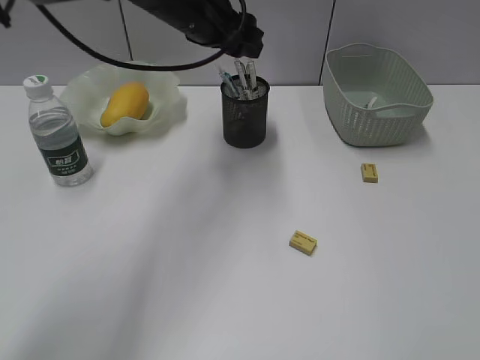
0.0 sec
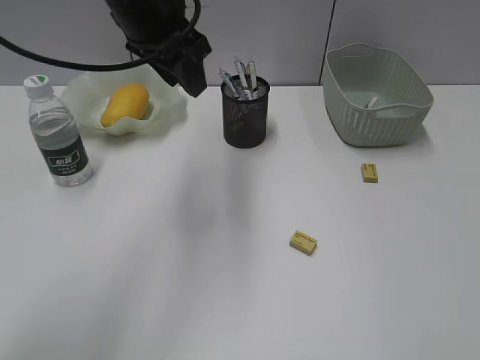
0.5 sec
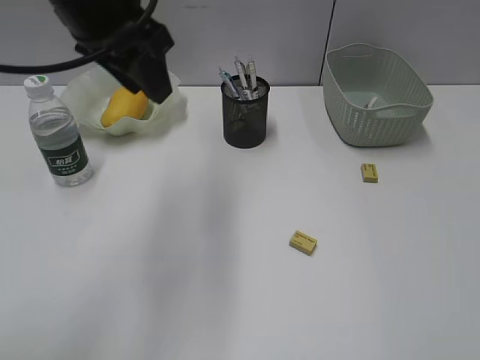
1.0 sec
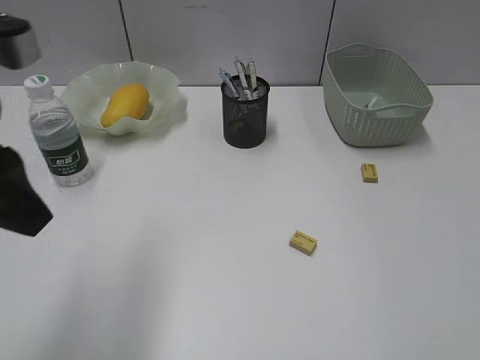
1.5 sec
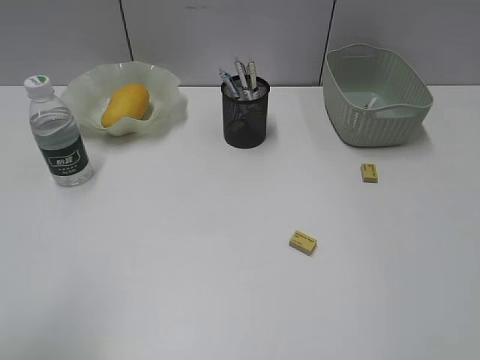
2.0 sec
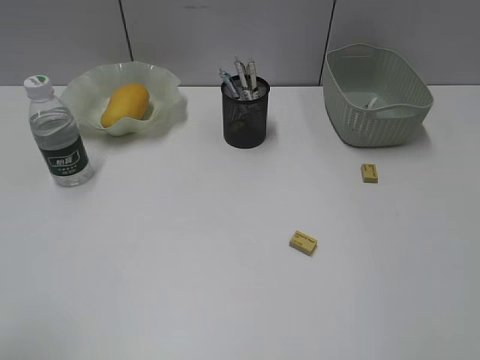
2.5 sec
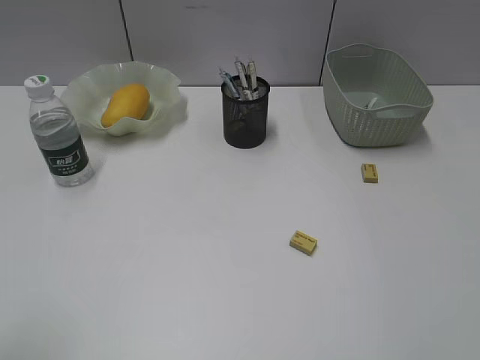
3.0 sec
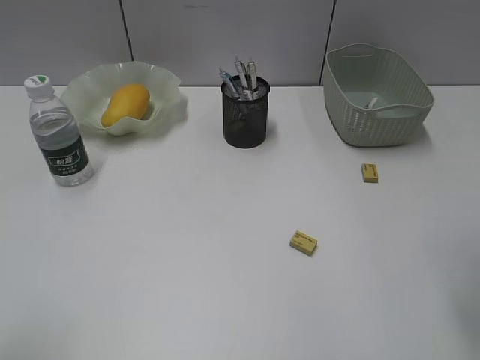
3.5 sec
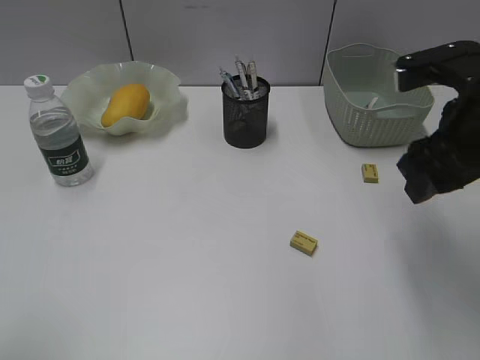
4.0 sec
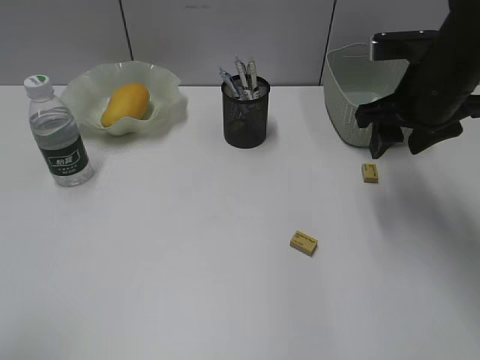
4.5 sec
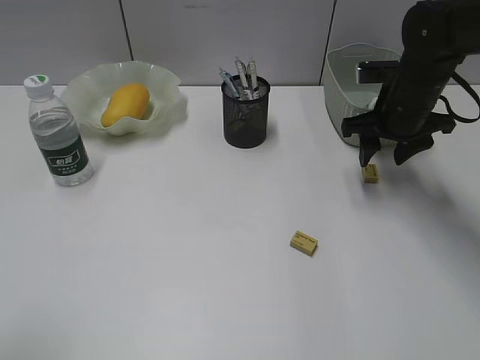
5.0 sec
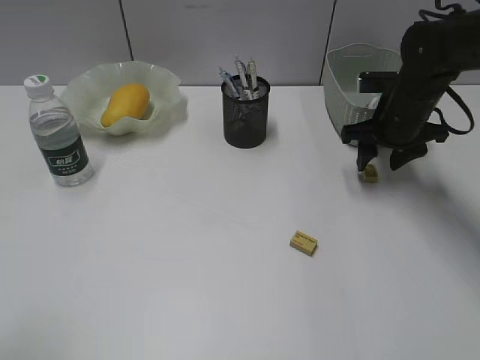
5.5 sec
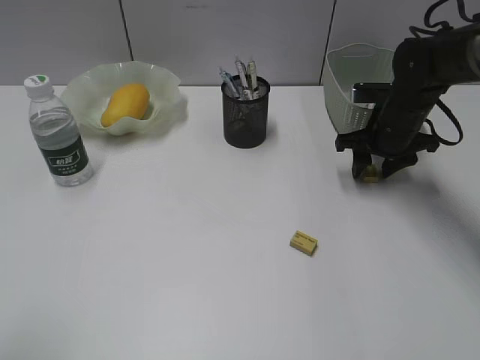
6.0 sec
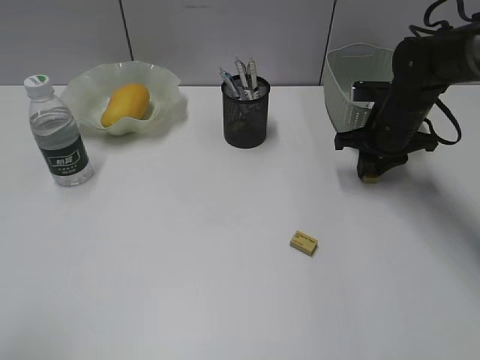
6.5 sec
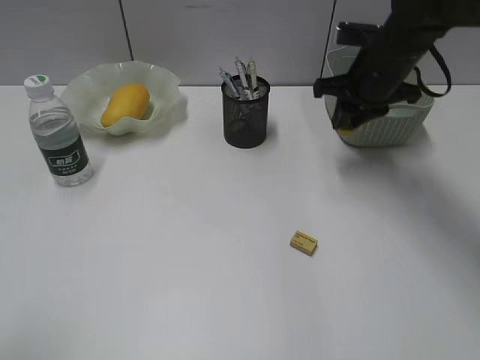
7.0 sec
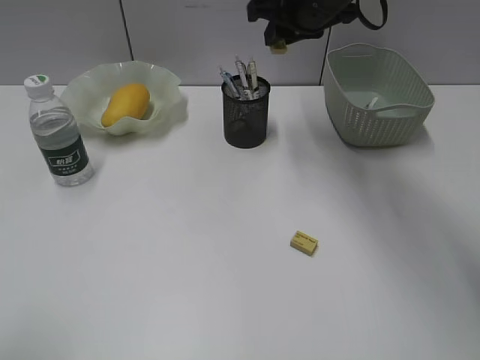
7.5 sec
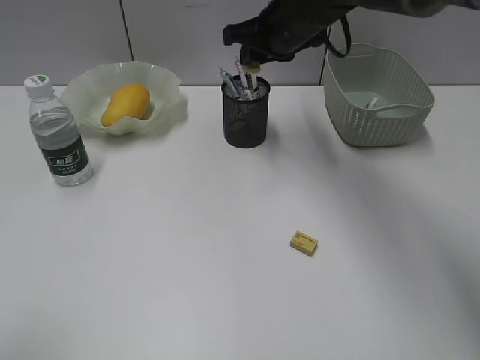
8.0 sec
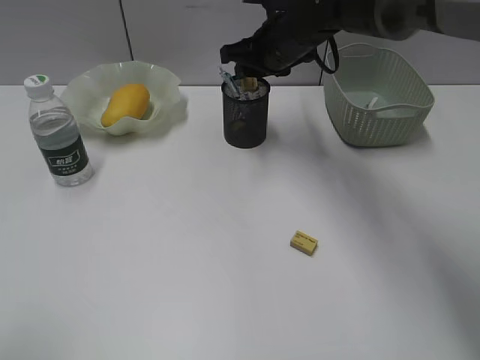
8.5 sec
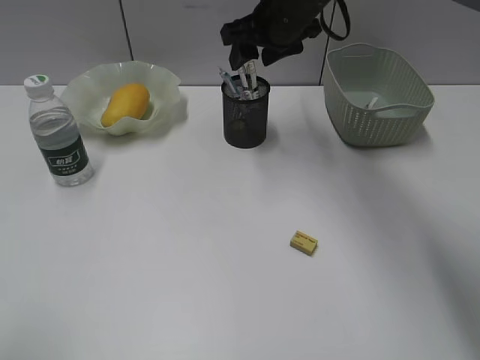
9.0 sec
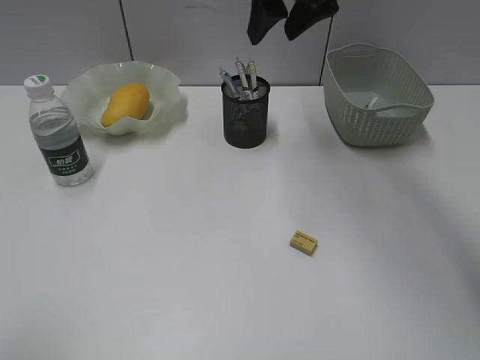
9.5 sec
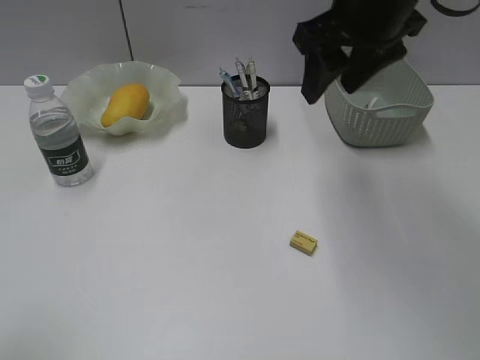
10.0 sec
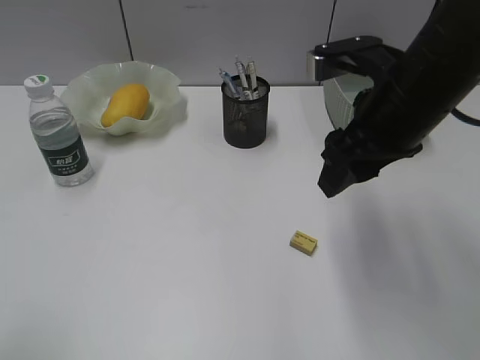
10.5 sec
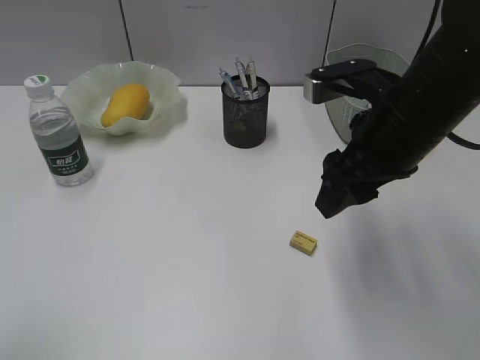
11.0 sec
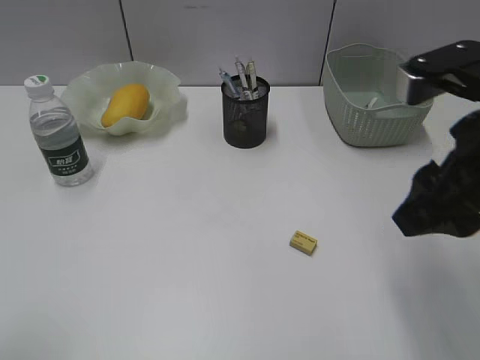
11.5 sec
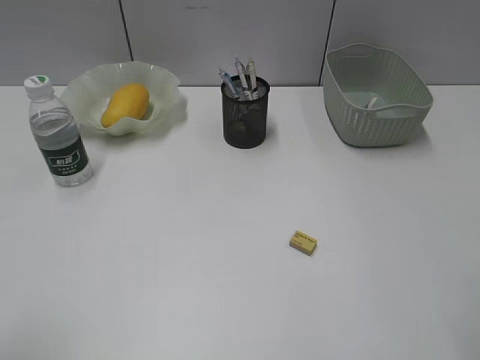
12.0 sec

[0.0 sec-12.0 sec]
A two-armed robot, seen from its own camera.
Step, 0.0 sec to 6.5 sec: Grasp the eraser with right gripper.
Step, 7.0 sec to 8.5 sec: Place the eraser in pen holder with right gripper.
0.0 sec to 2.0 sec: The left gripper moves backward and to the left, approximately 40 cm.
2.0 sec to 4.0 sec: The right gripper shifts roughly 25 cm forward and to the left.
4.0 sec to 6.0 sec: The right gripper travels forward and downward by roughly 25 cm.
6.0 sec to 8.0 sec: The right gripper goes some 20 cm to the left and upward, and closes its fingers.
8.0 sec to 10.0 sec: The right gripper goes roughly 15 cm backward, upward and to the right, and opens its fingers.
10.0 sec to 12.0 sec: The right gripper goes about 30 cm backward and to the right.

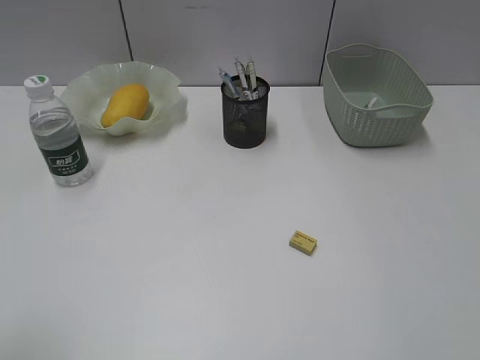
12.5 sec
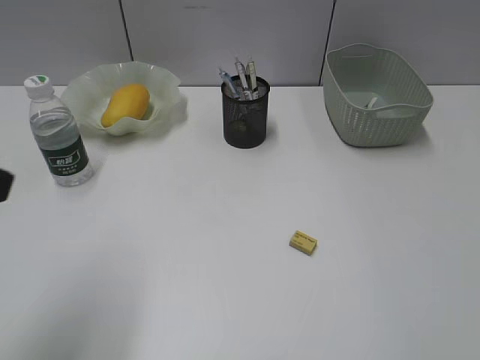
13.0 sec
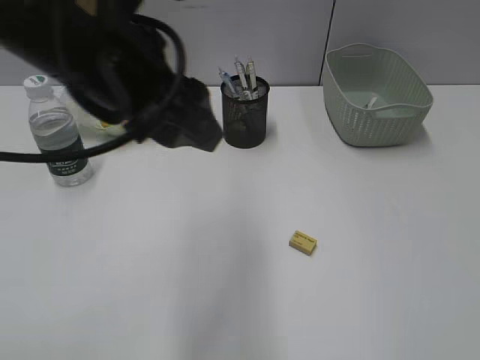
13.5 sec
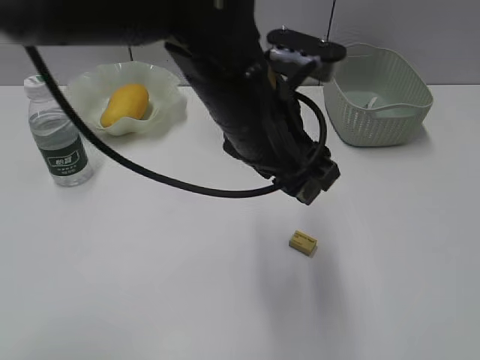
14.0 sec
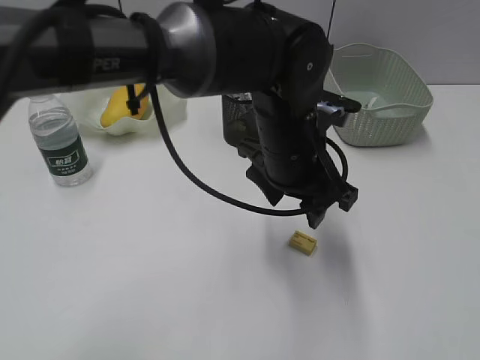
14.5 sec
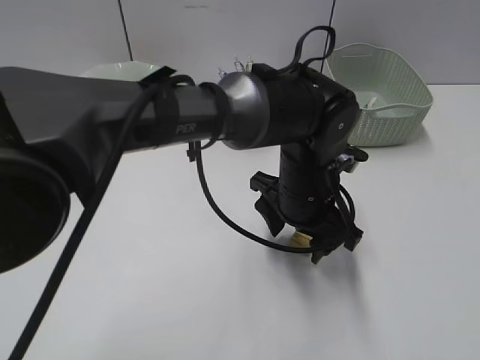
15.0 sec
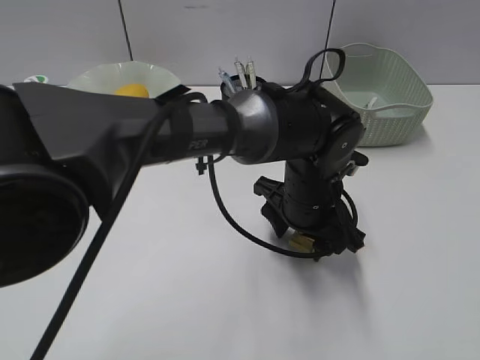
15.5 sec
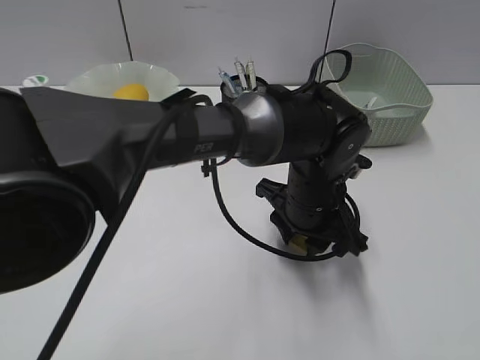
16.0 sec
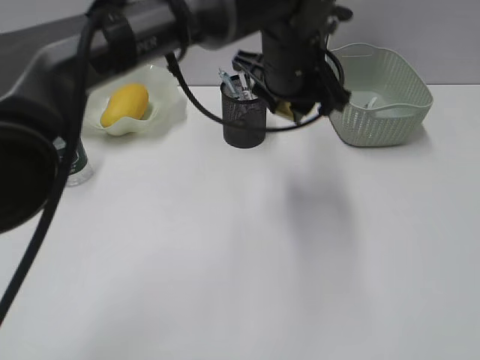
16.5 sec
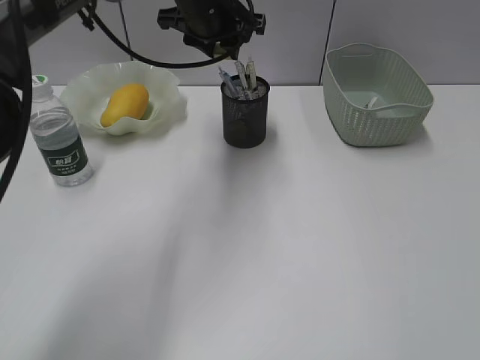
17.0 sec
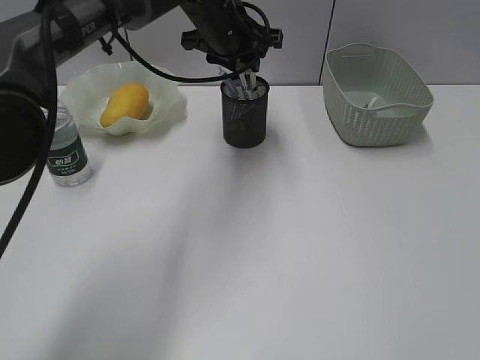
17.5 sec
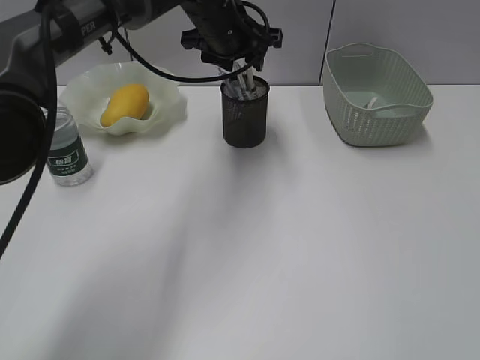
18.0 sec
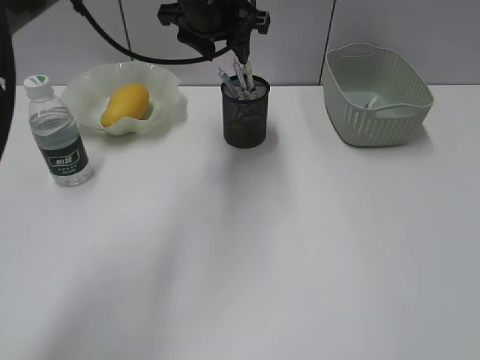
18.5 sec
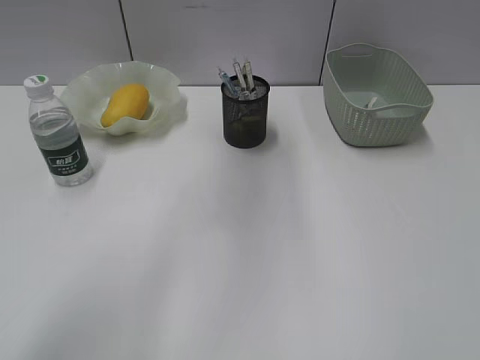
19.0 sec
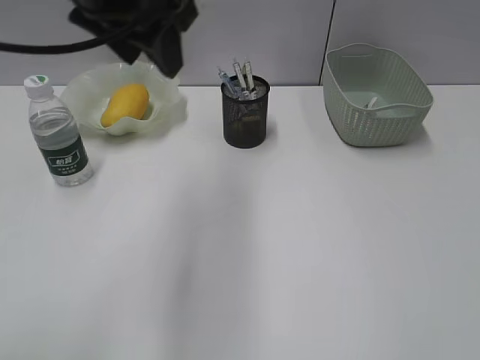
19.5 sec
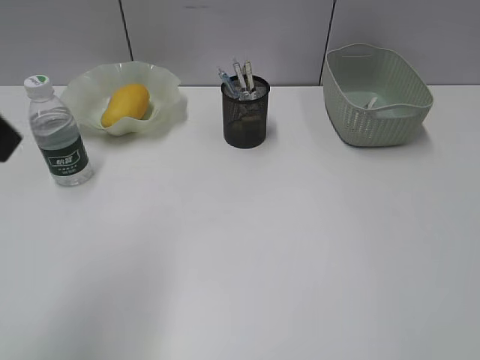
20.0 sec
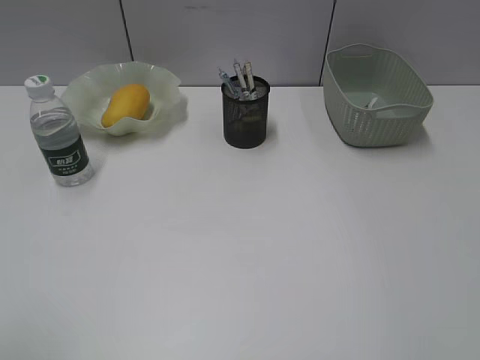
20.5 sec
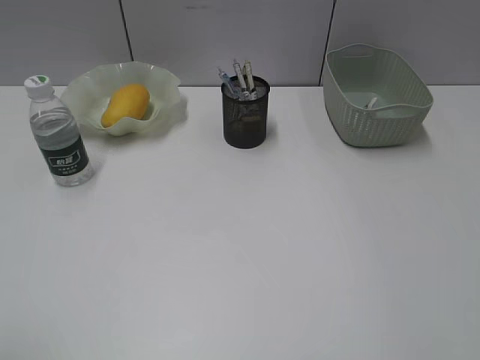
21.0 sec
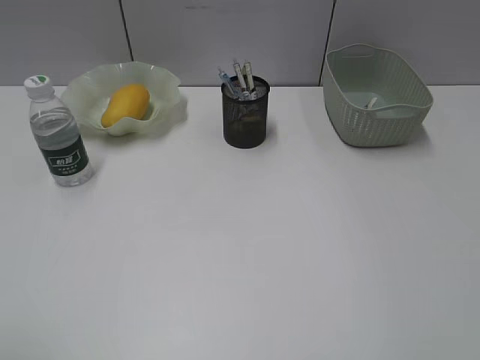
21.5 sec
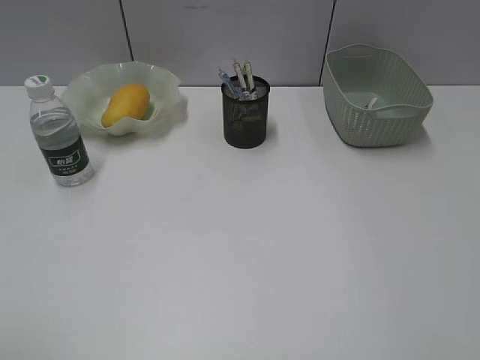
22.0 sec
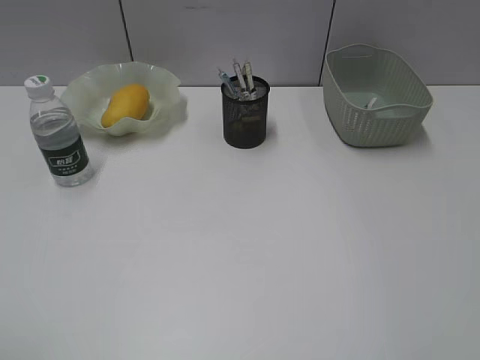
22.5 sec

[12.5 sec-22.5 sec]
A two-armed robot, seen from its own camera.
Step, 12.5 sec to 15.5 sec: Grasp the eraser with left gripper.
Step, 16.0 sec to 18.0 sec: Place the eraser in pen holder with left gripper.
12.5 sec to 14.5 sec: The left gripper goes some 40 cm to the right and forward.
14.5 sec to 16.5 sec: The left gripper heads forward, covering some 5 cm, and closes its fingers.
16.5 sec to 18.5 sec: The left gripper moves to the left and forward, approximately 15 cm.
18.5 sec to 20.5 sec: The left gripper goes about 50 cm backward and to the left.

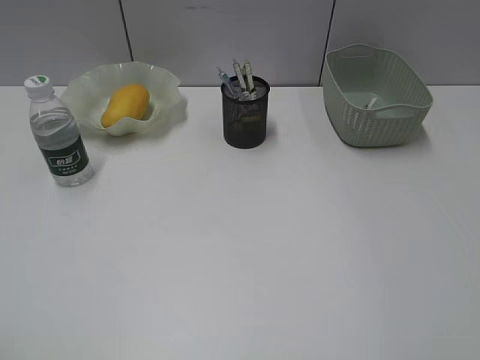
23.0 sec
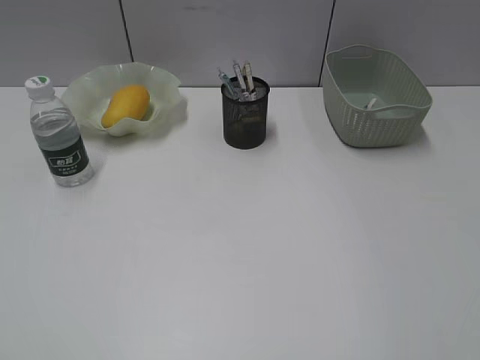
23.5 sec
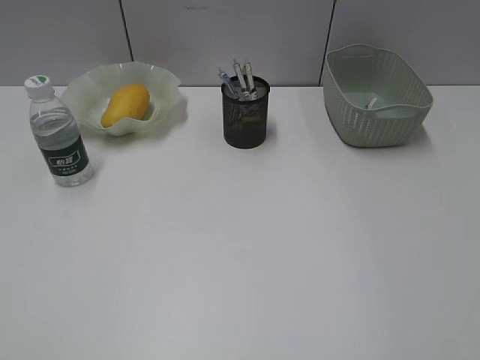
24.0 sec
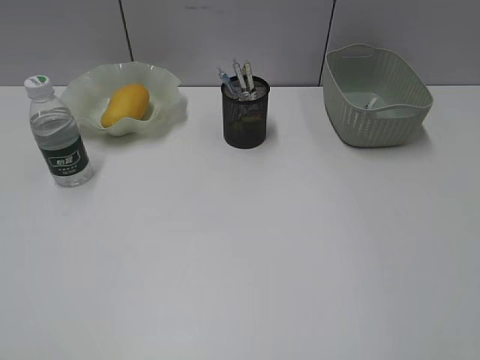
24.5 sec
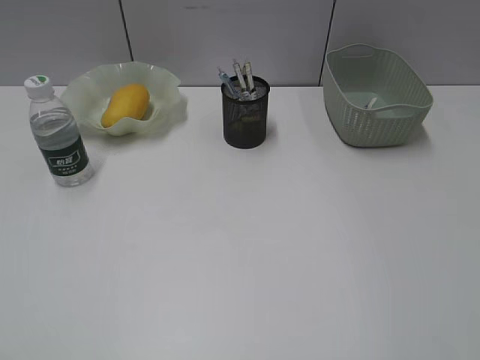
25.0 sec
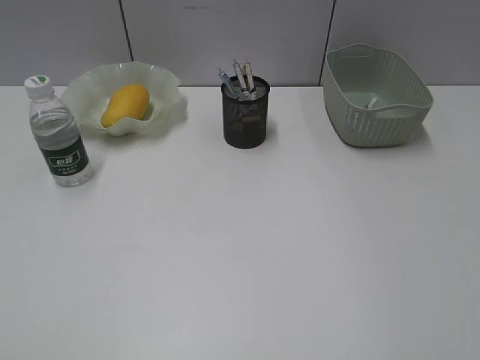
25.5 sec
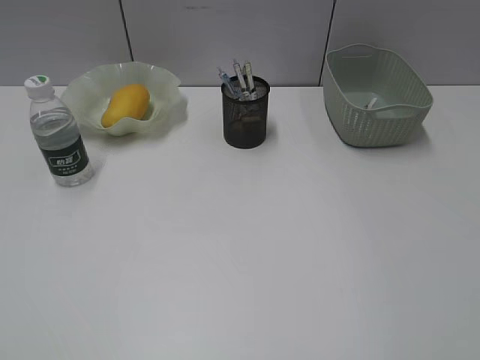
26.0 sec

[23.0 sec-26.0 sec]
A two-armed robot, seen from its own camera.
24.5 sec to 26.0 sec: Both grippers stay about where they are.
